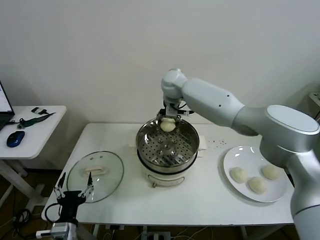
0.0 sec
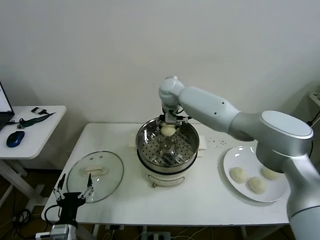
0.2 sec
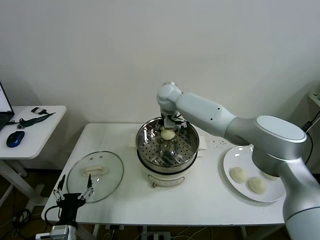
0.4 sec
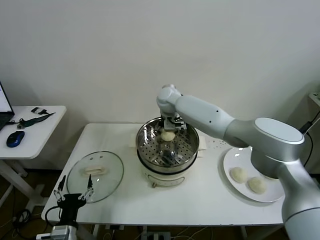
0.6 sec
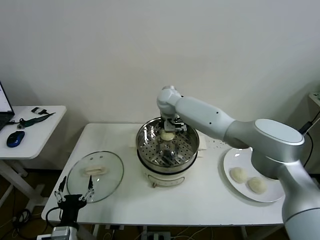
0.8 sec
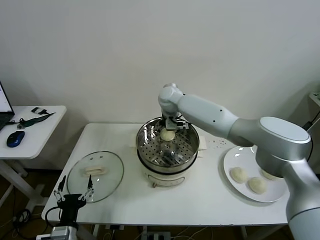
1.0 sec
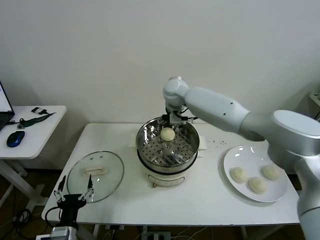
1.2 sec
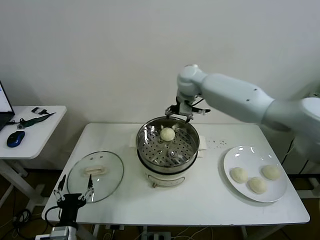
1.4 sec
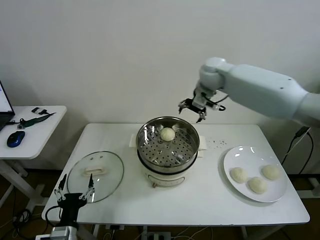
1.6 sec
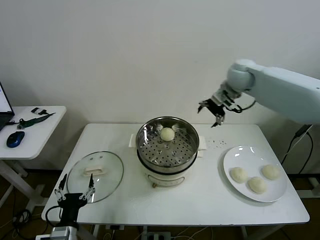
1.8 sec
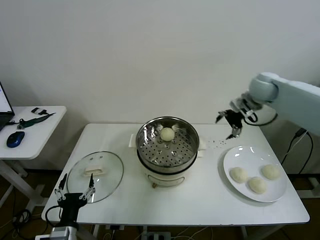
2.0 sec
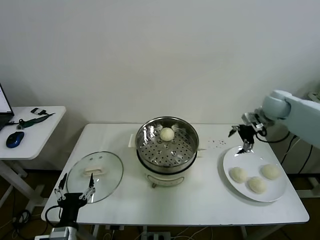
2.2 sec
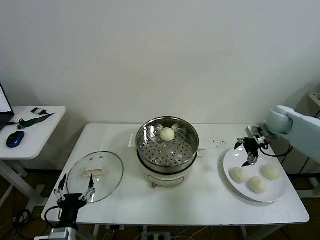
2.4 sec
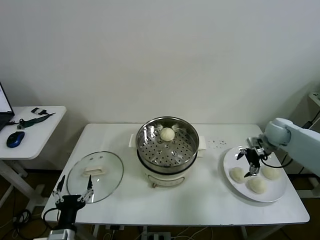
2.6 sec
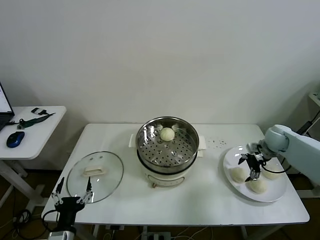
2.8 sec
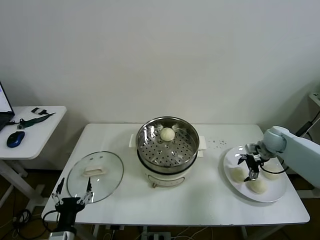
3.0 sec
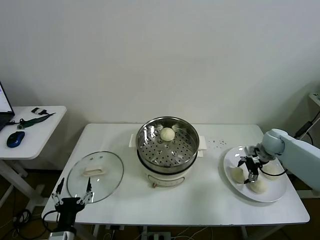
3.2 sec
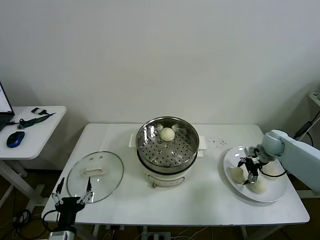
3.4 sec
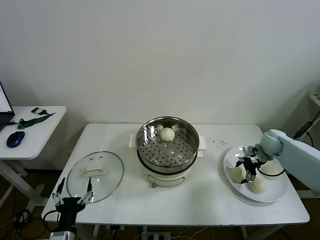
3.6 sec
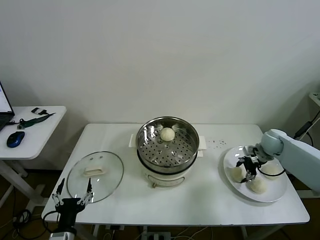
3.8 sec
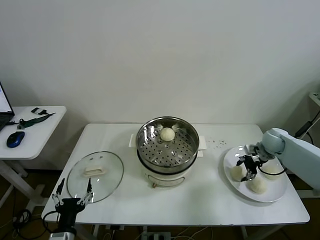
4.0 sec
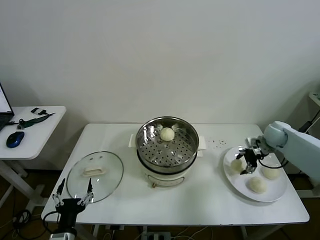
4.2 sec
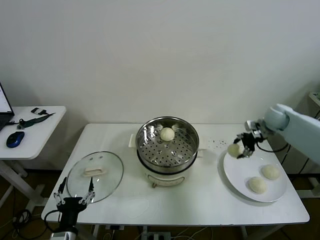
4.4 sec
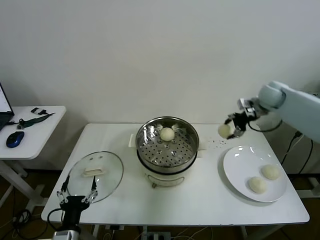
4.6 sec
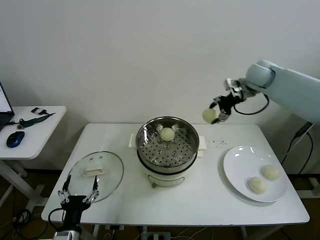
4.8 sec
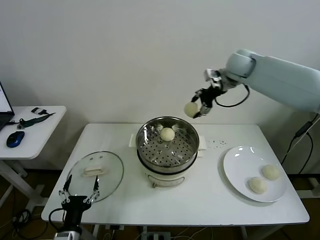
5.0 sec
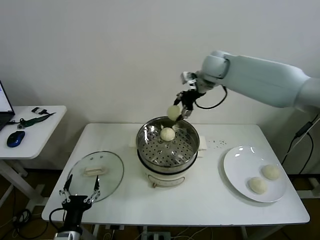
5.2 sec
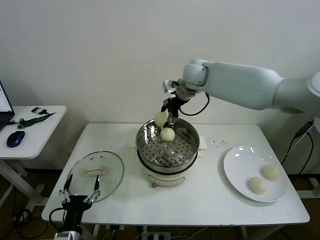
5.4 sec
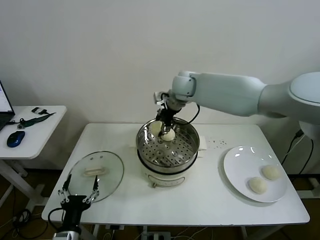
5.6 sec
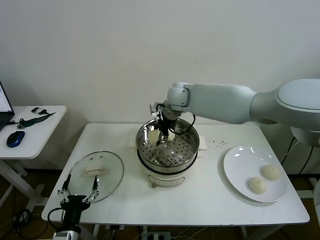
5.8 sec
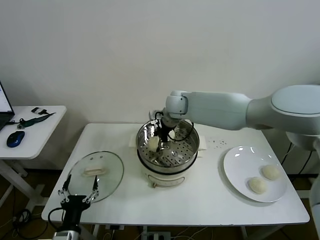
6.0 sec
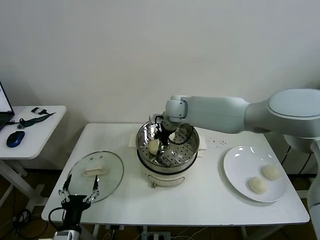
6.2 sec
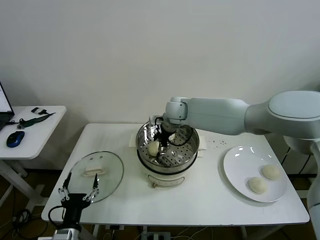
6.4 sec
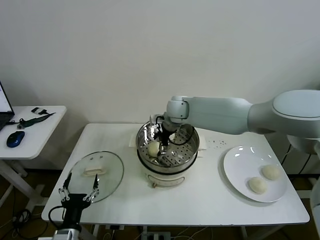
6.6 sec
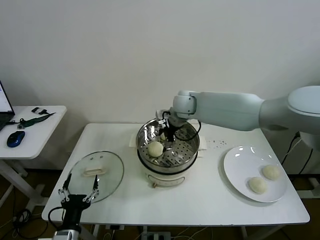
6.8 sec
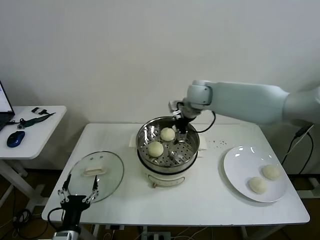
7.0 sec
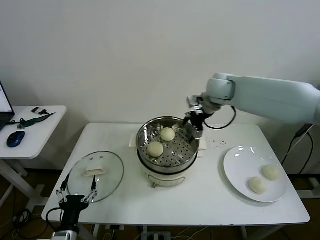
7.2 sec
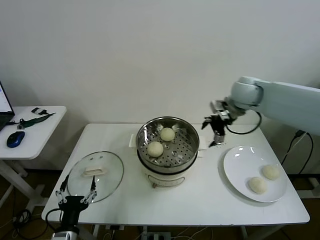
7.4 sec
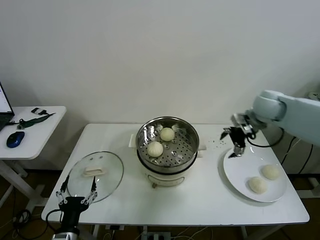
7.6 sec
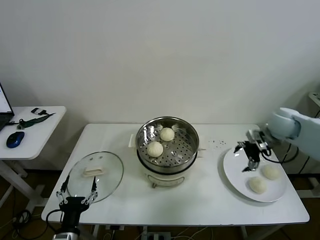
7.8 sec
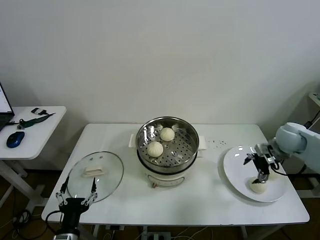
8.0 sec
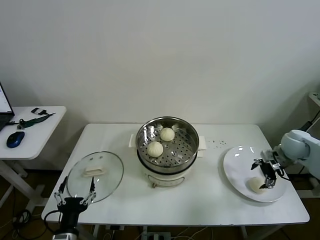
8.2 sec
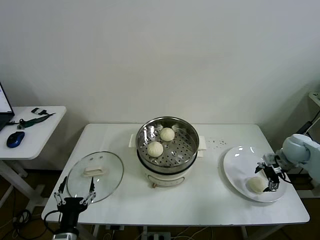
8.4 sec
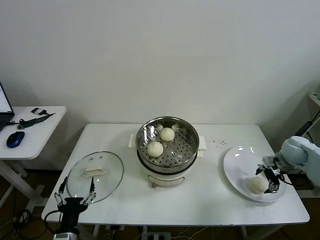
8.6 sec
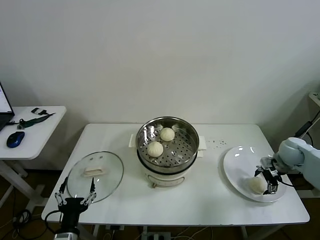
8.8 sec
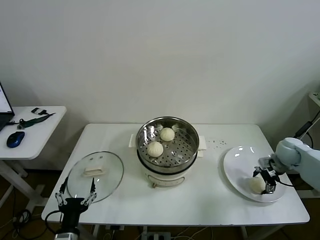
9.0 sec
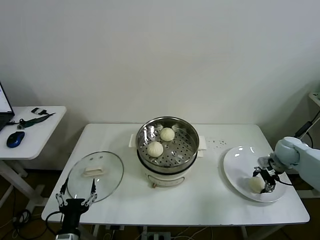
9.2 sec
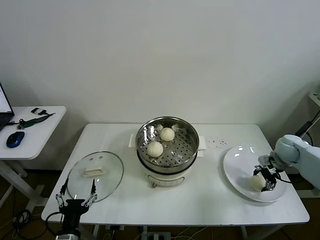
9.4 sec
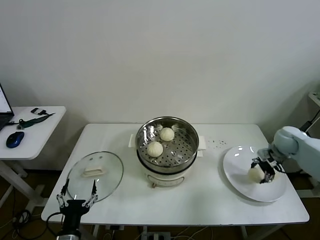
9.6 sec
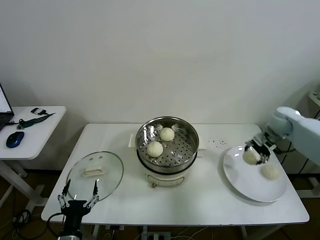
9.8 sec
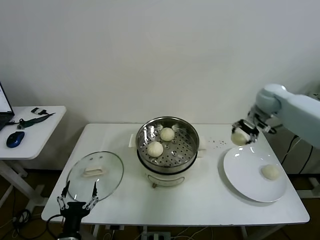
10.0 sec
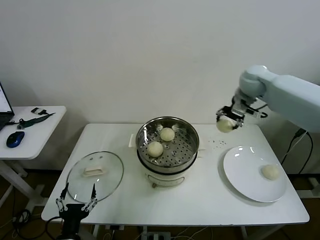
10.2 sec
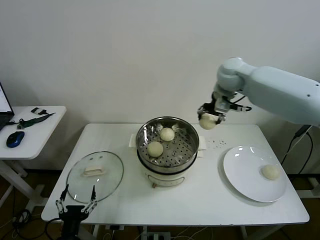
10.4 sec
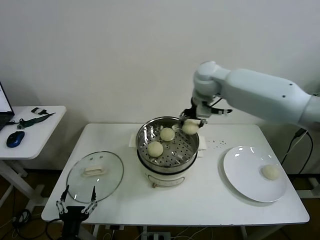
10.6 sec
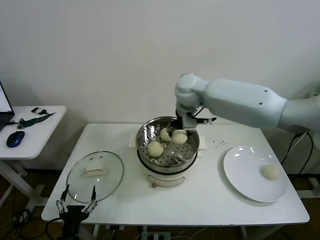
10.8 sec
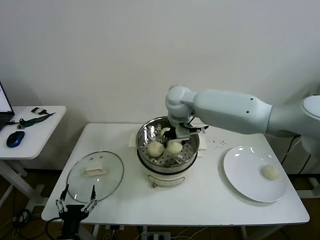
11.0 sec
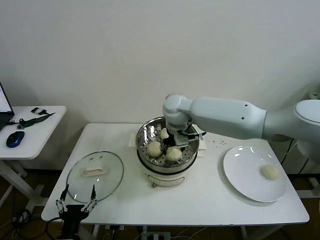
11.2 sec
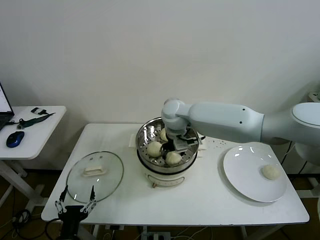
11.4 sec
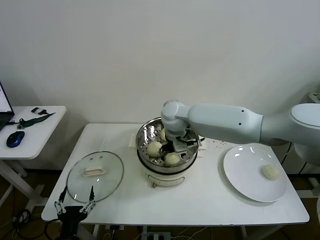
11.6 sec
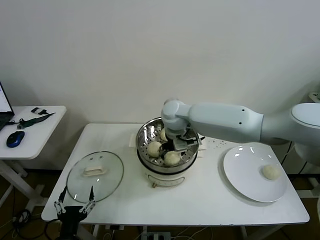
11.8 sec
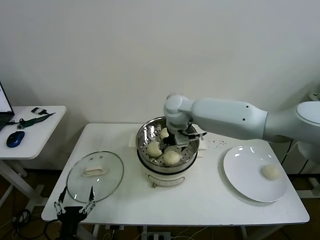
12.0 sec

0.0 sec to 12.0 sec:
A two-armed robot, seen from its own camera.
Task of the whole recording: take steamed baozi put them in steamer then cover it.
Step, 1.2 sec to 3.4 sec: Grasp the baozi in the plate with right gripper.
Step, 3.6 sec to 6.6 sec: Place the baozi on the steamer with right gripper.
Step, 7.0 sec to 9.4 sec: Grasp the baozi in the plate with right gripper.
Step, 9.6 sec to 11.8 sec: Place the baozi on the steamer with right gripper.
0.0 sec to 1.6 sec: The right gripper travels to the right by approximately 20 cm.
1.6 sec to 3.0 sec: The right gripper moves downward and to the right, roughly 30 cm.
3.0 sec to 4.4 sec: The right gripper shifts about 15 cm upward and forward.
4.4 sec to 6.0 sec: The right gripper heads to the left, covering about 35 cm.
6.0 sec to 7.6 sec: The right gripper shifts approximately 30 cm to the right.
7.6 sec to 9.0 sec: The right gripper is displaced downward and to the right by approximately 20 cm.
9.0 sec to 10.4 sec: The right gripper moves to the left and upward, roughly 40 cm.
10.4 sec to 12.0 sec: The right gripper travels to the left and downward by roughly 15 cm.

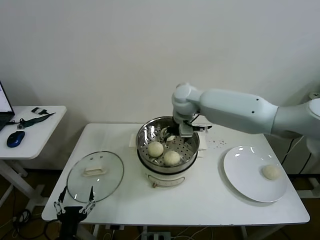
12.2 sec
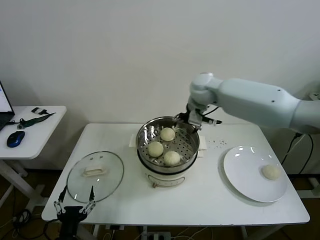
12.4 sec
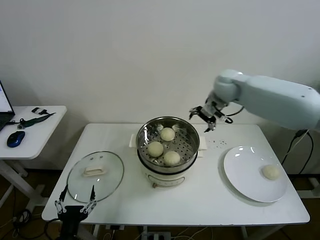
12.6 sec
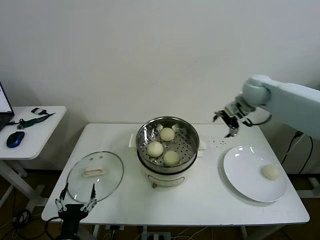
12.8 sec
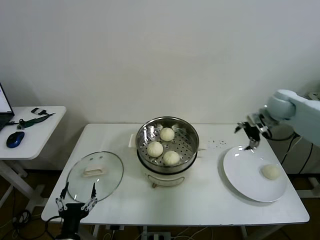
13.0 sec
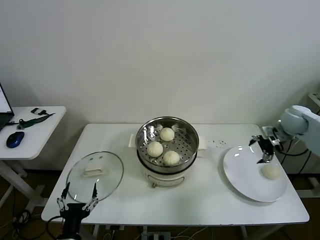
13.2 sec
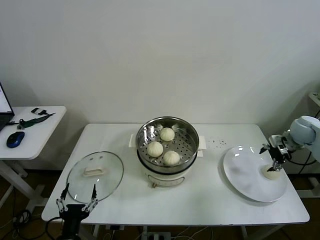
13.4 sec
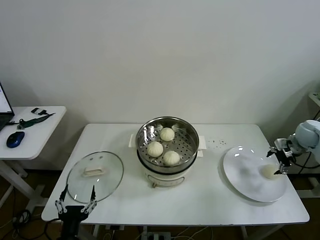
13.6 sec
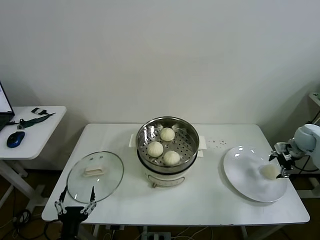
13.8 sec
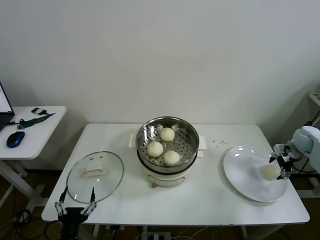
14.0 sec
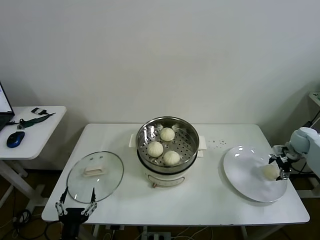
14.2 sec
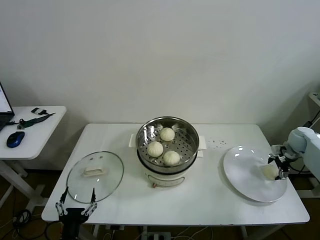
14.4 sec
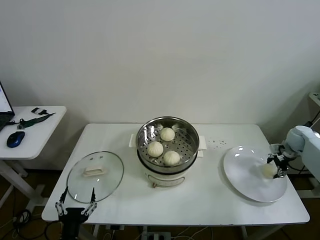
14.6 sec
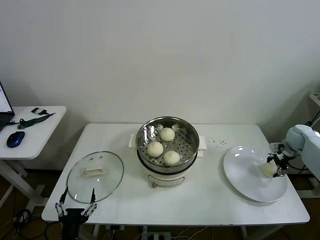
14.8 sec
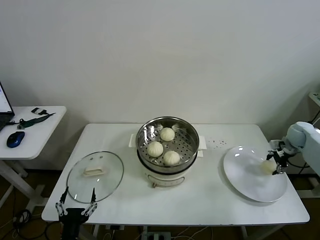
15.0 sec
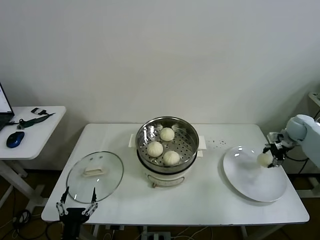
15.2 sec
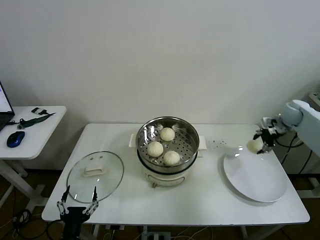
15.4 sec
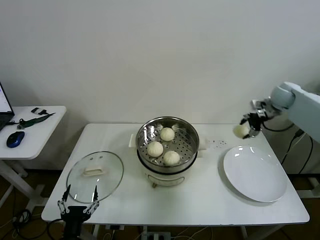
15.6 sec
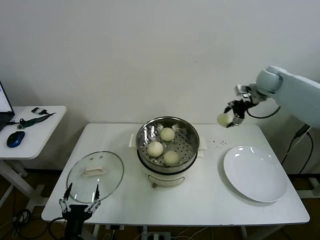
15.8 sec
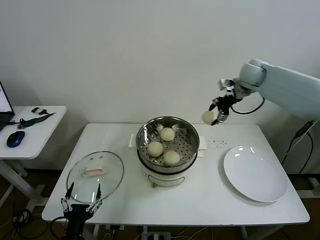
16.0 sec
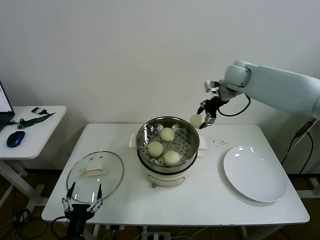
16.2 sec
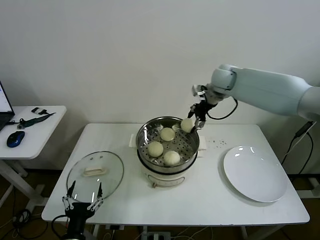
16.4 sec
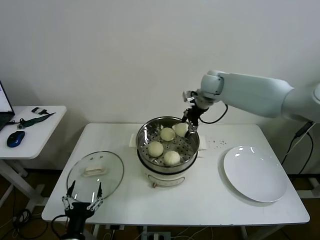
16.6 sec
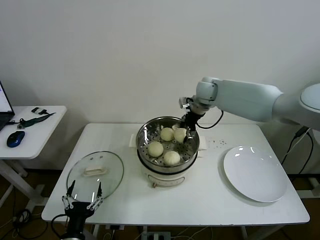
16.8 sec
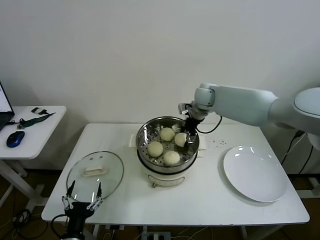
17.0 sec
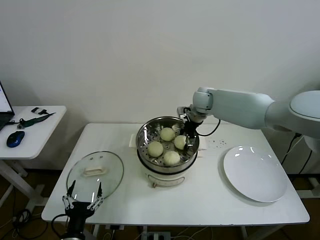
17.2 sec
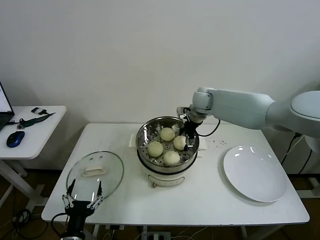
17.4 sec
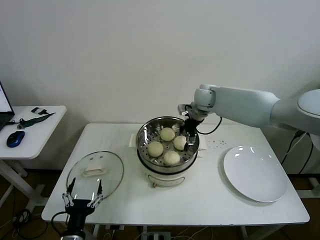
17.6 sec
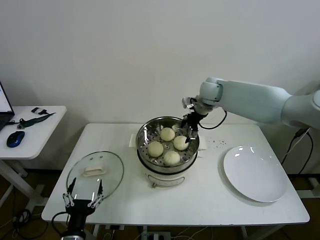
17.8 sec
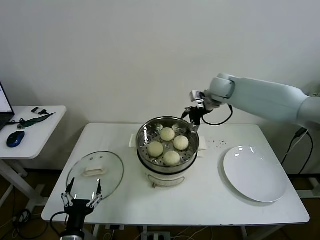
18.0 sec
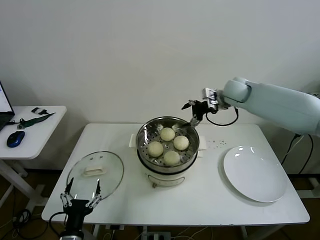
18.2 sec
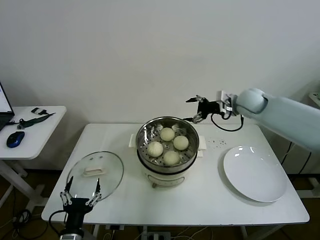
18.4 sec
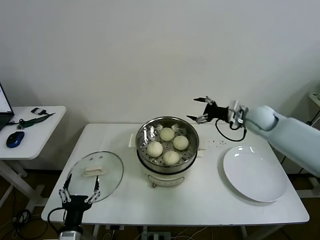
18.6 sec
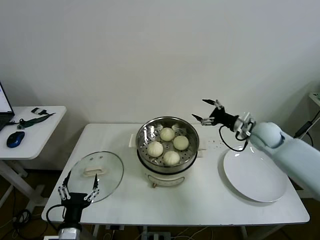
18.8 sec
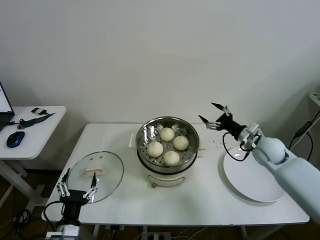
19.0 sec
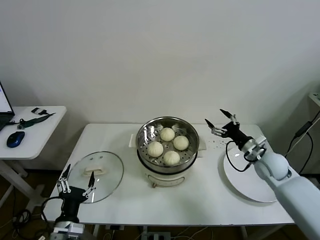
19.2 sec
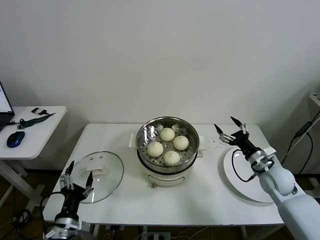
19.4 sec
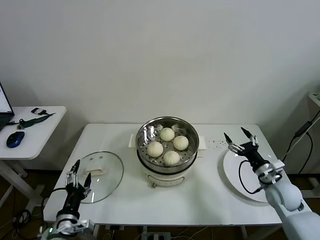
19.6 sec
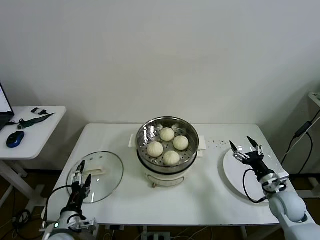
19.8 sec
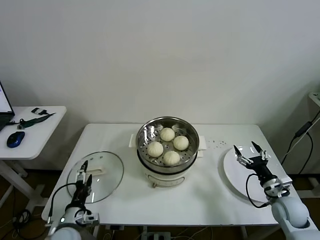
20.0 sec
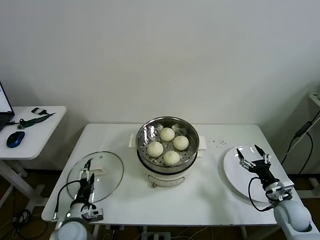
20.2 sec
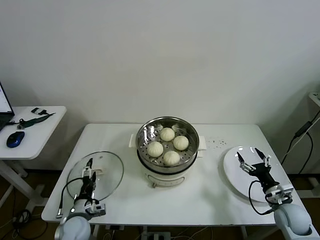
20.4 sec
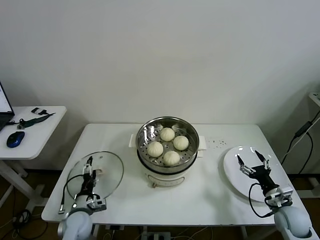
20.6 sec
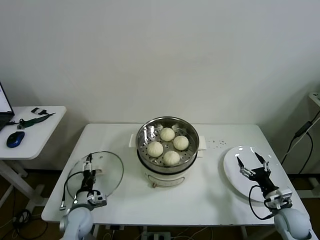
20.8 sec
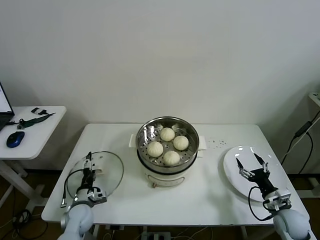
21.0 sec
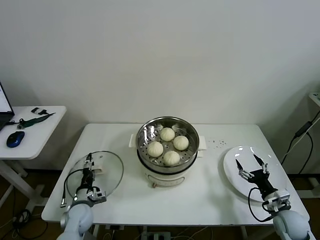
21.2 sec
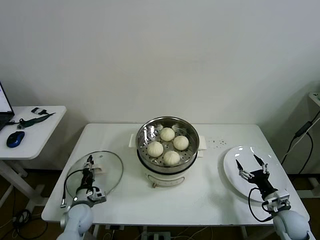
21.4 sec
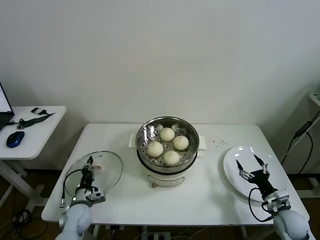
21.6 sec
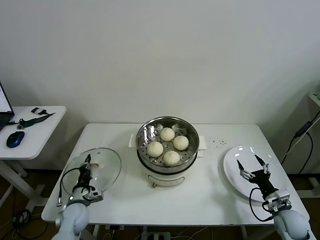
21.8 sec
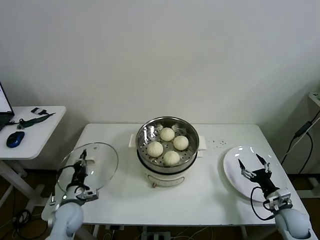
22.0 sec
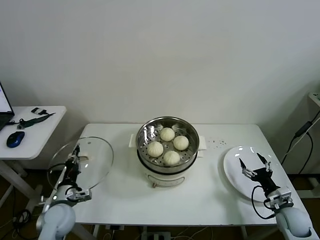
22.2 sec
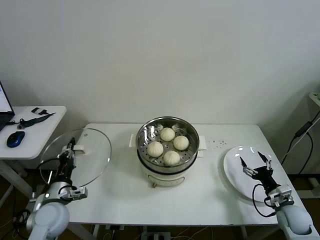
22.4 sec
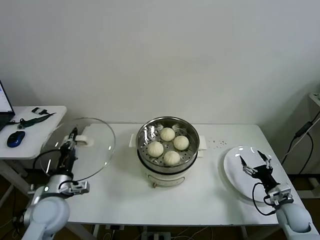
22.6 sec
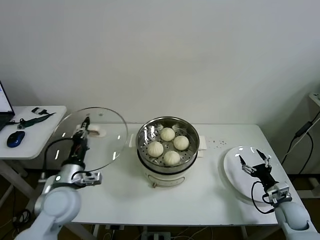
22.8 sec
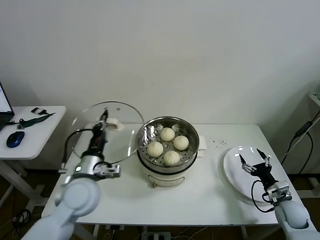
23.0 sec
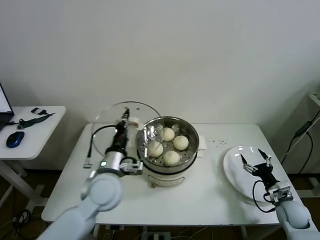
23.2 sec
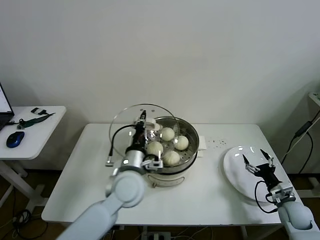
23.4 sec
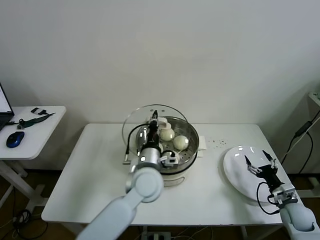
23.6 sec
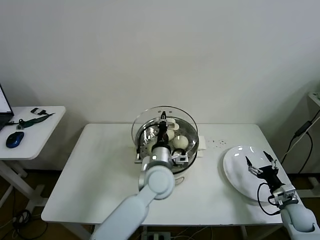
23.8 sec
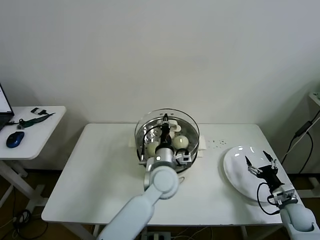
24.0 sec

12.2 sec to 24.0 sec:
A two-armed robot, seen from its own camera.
Task of the whole recording: take steamed baozi put them in steamer then cover it.
Step, 12.2 sec to 14.8 sec: Grasp the baozi in the plate with right gripper.
Step, 15.0 sec to 17.6 sec: Place the baozi on the steamer with right gripper.
Step, 17.8 sec to 21.8 sec: Grasp the pot lid with left gripper.
12.2 sec to 13.6 sec: The right gripper shifts some 40 cm to the right.
13.6 sec to 15.2 sec: The right gripper ends up approximately 5 cm from where it was.
15.2 sec to 16.6 sec: The right gripper shifts approximately 35 cm to the left.
16.6 sec to 18.2 sec: The right gripper goes about 10 cm to the right.
18.2 sec to 19.6 sec: The left gripper travels forward by roughly 5 cm, while the right gripper travels backward, downward and to the right by about 35 cm.
19.6 sec to 21.0 sec: The right gripper is displaced downward and backward by approximately 10 cm; the left gripper moves forward and downward, approximately 15 cm.
21.0 sec to 22.6 sec: The left gripper is displaced upward by roughly 15 cm, and closes.
22.6 sec to 24.0 sec: The left gripper moves to the right, some 30 cm.
